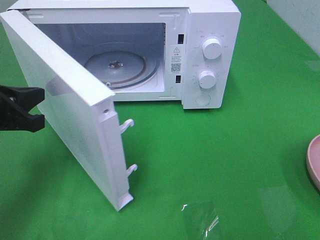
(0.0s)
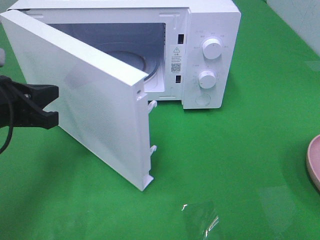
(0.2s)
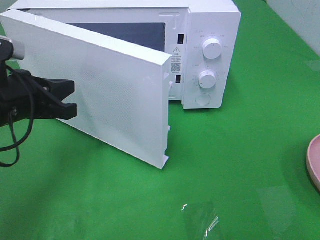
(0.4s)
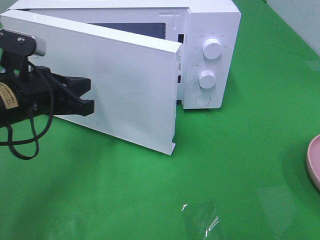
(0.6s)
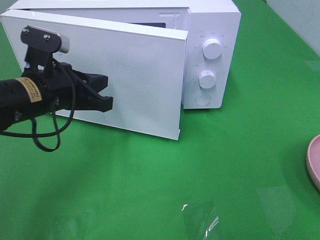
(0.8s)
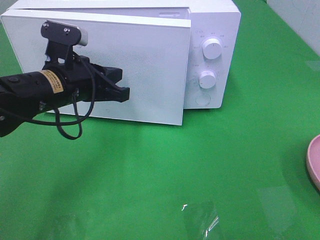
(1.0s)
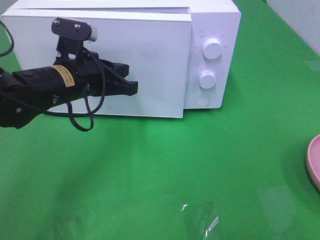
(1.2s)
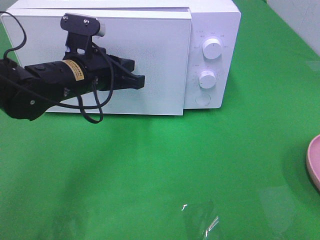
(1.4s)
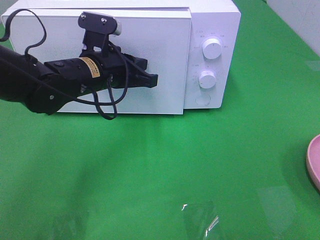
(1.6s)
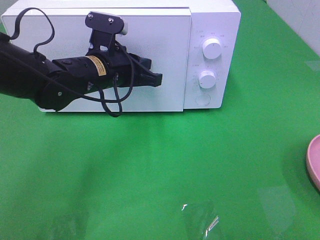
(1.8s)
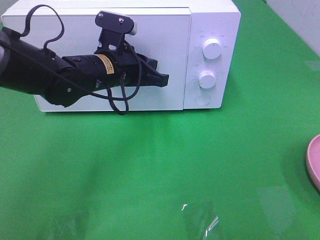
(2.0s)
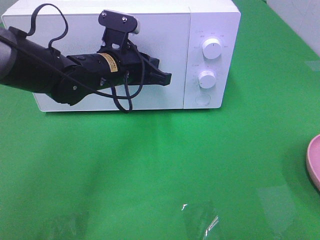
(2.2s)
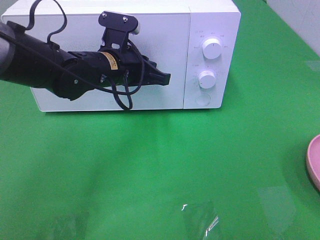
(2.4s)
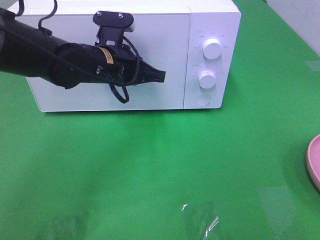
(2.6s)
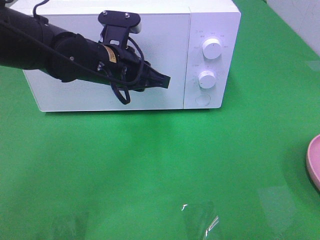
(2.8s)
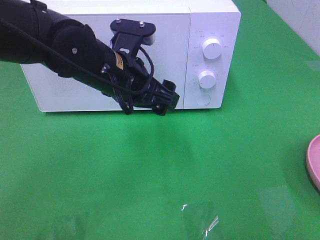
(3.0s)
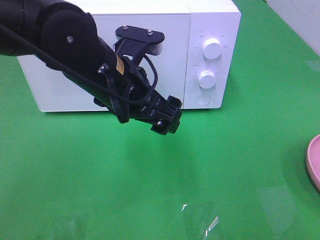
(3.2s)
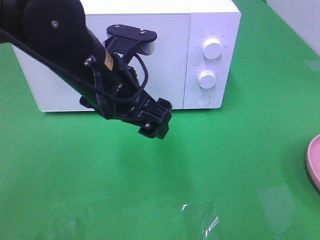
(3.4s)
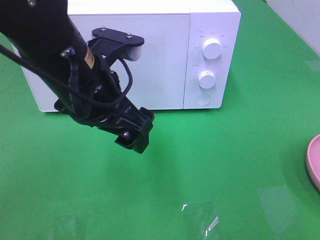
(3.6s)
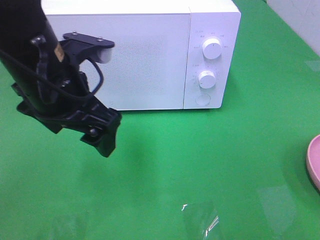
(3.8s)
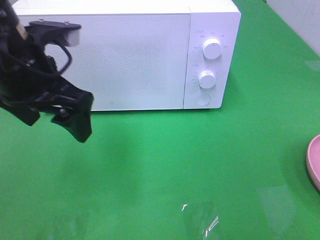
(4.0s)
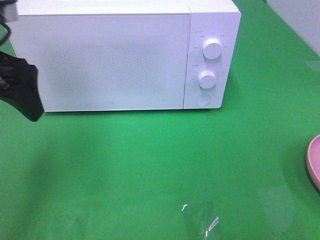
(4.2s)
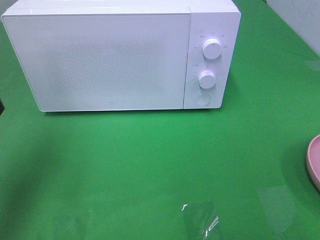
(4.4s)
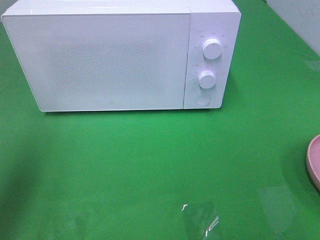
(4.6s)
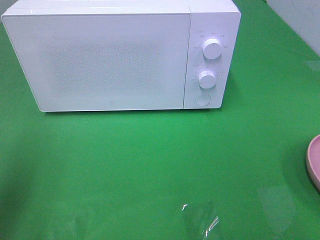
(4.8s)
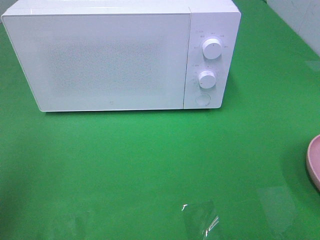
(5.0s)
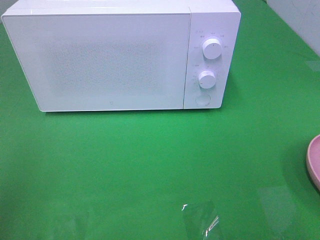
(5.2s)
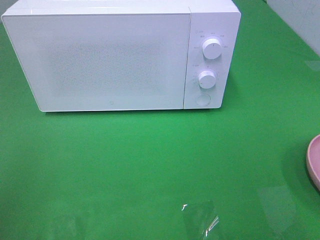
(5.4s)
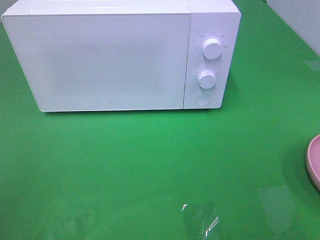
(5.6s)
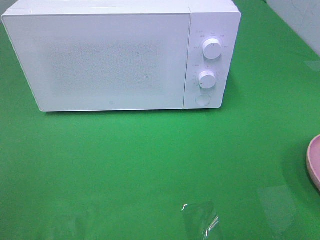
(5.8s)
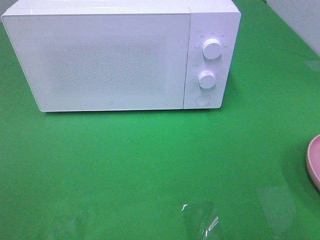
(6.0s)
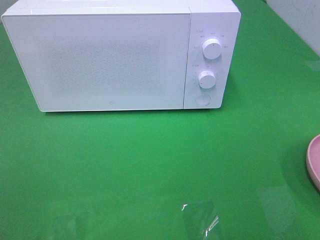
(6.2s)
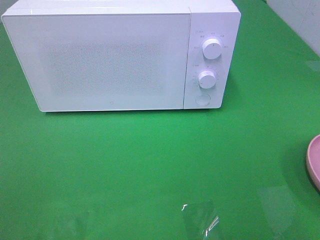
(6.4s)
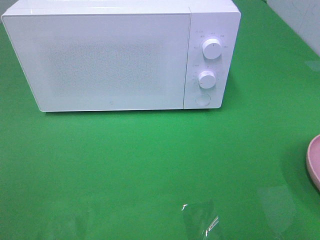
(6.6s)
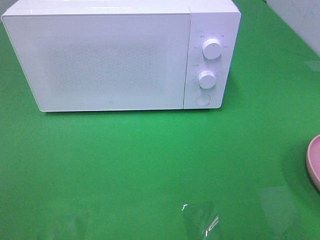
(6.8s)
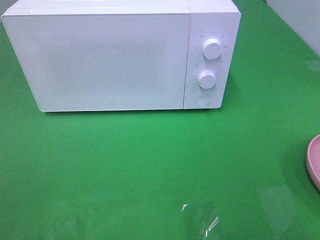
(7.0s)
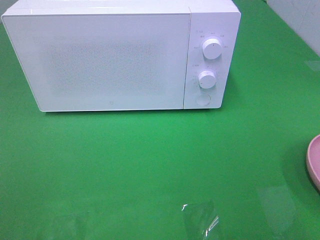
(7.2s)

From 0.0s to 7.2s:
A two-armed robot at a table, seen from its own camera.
Task of the whole recording: Heat the burger.
Step, from 0.0s to 3.2s: Left hand: close the microwave door.
From 0.0s to 1.4s: The left gripper travels to the right and forward by some 15 cm.
From 2.8s to 4.4s: The left gripper shifts about 25 cm to the left, upward and backward, and opens its fingers.
From 4.4s to 5.8s: The left gripper shifts approximately 20 cm backward.

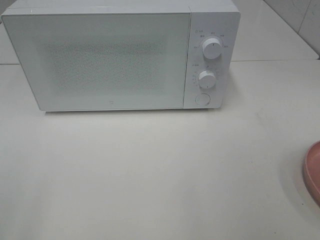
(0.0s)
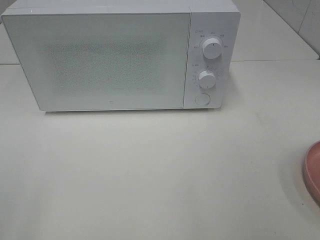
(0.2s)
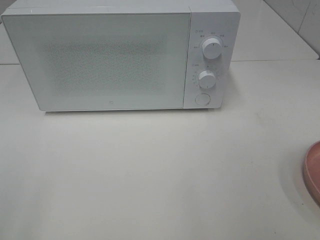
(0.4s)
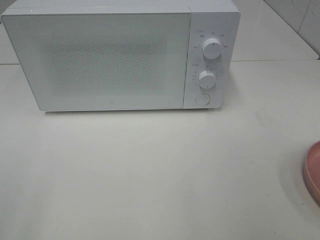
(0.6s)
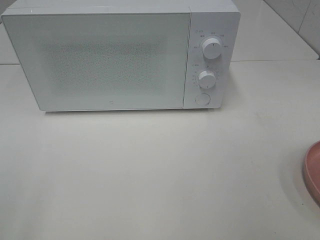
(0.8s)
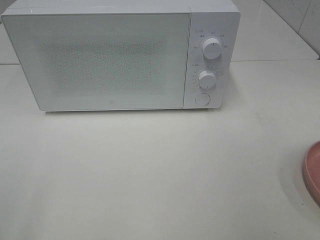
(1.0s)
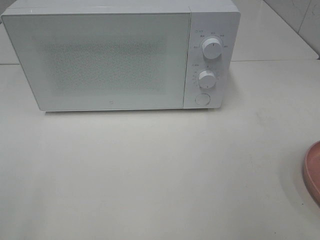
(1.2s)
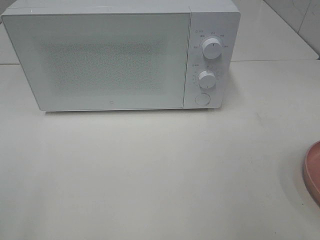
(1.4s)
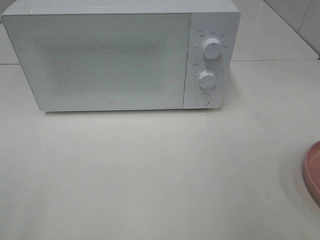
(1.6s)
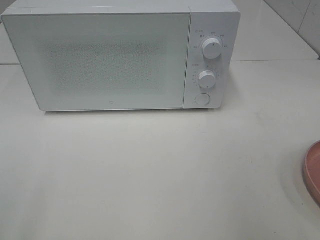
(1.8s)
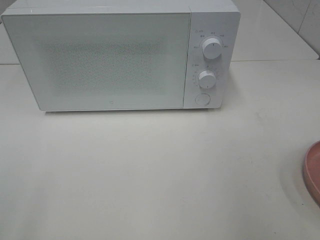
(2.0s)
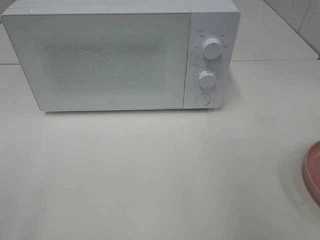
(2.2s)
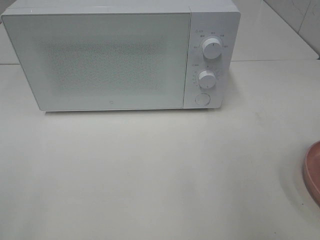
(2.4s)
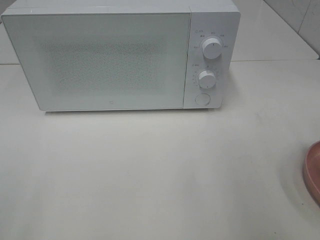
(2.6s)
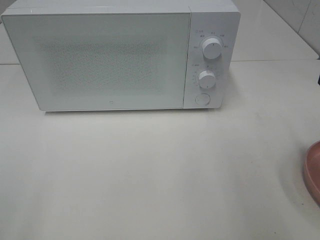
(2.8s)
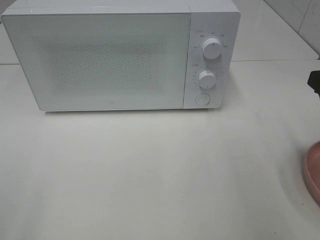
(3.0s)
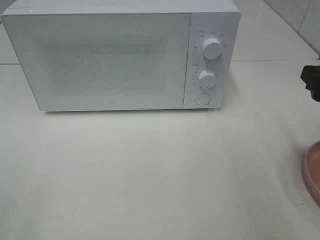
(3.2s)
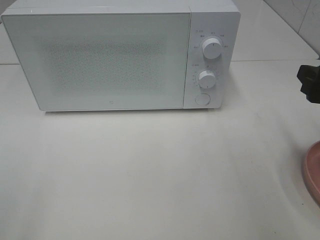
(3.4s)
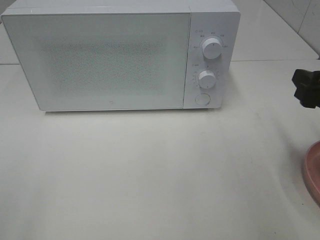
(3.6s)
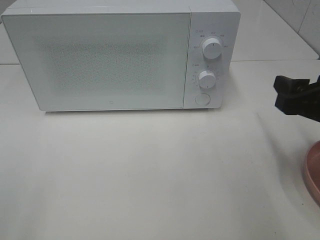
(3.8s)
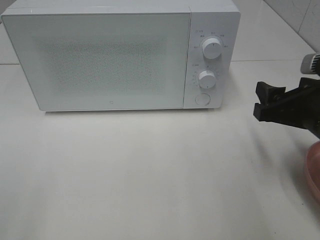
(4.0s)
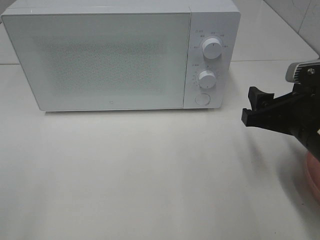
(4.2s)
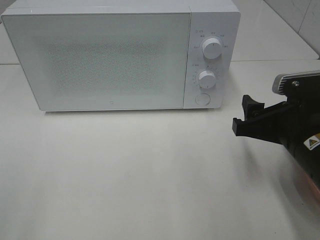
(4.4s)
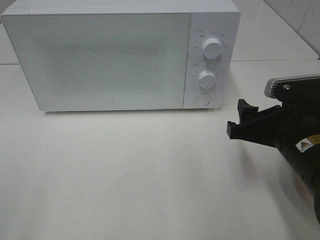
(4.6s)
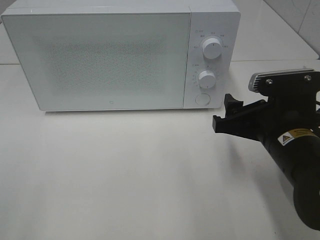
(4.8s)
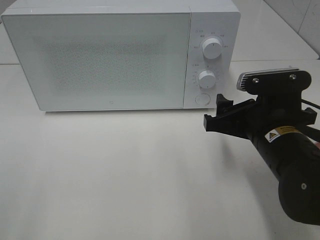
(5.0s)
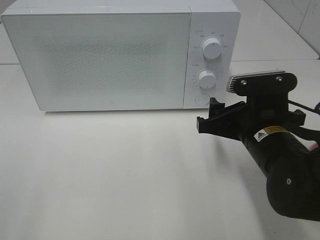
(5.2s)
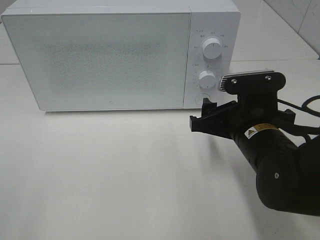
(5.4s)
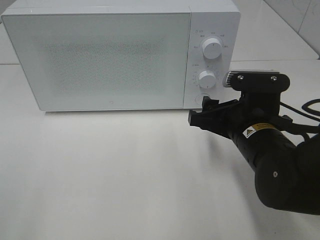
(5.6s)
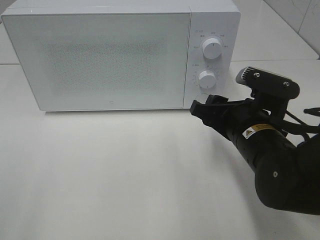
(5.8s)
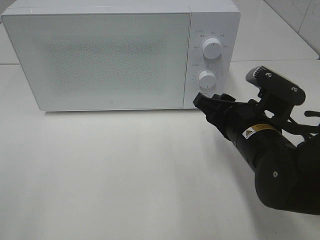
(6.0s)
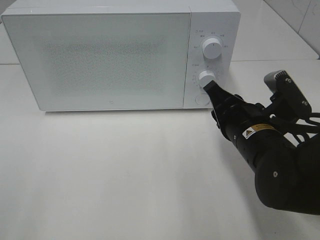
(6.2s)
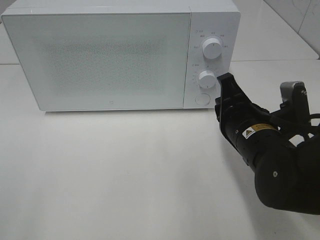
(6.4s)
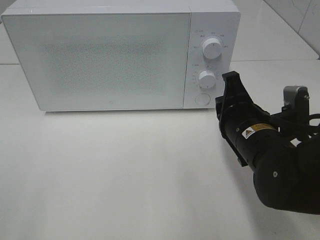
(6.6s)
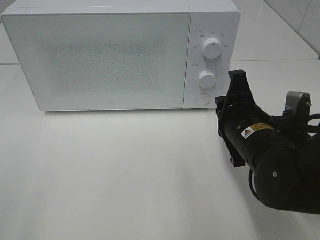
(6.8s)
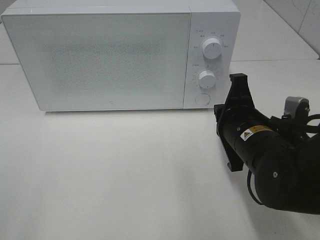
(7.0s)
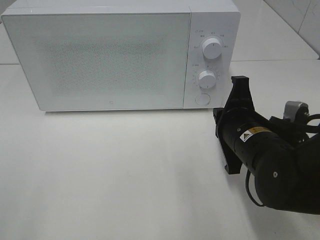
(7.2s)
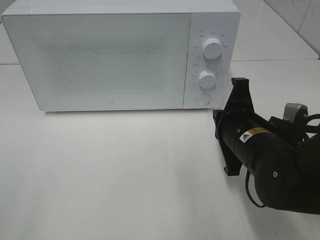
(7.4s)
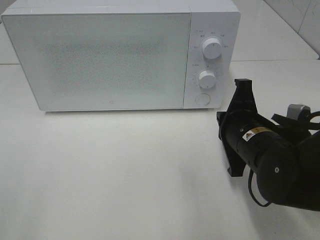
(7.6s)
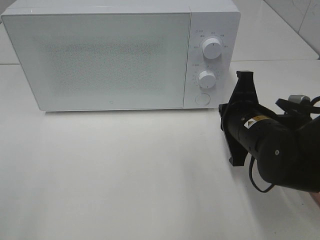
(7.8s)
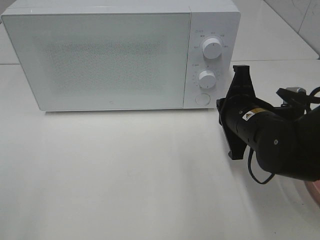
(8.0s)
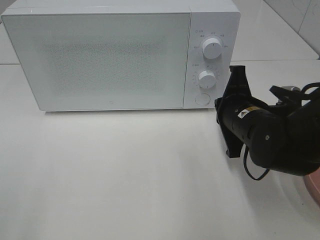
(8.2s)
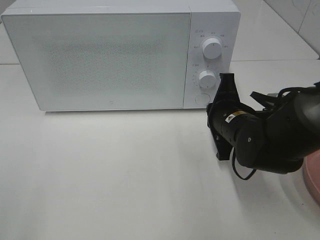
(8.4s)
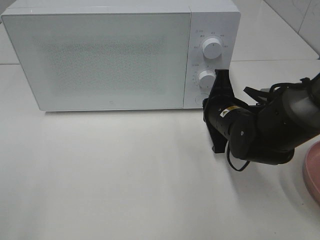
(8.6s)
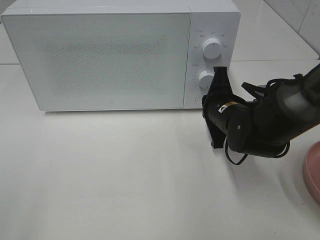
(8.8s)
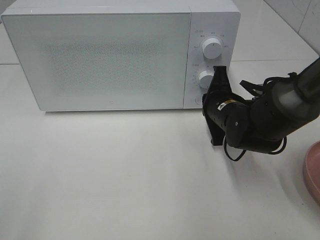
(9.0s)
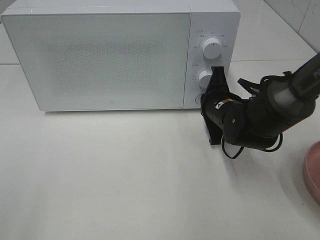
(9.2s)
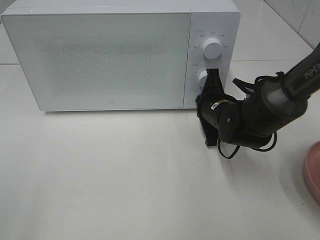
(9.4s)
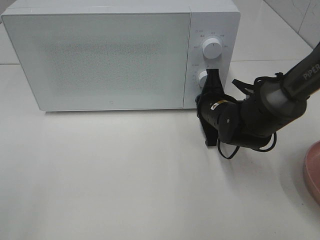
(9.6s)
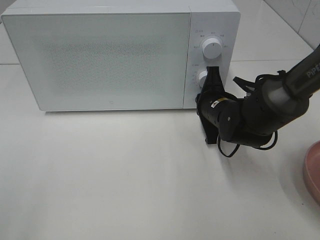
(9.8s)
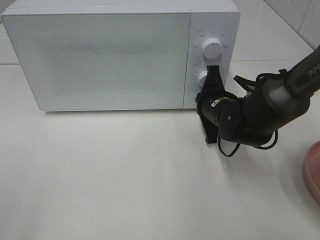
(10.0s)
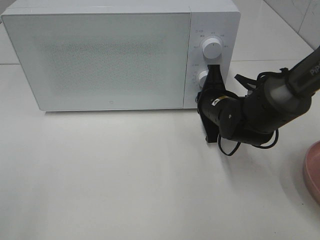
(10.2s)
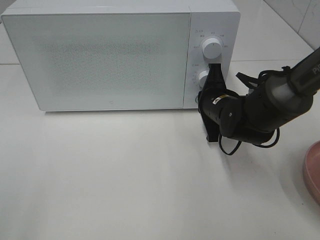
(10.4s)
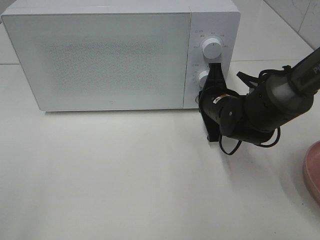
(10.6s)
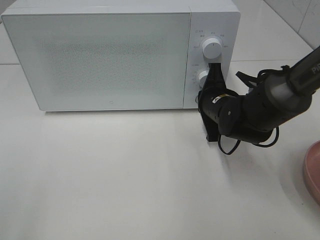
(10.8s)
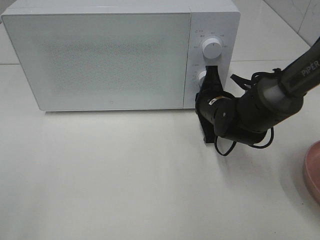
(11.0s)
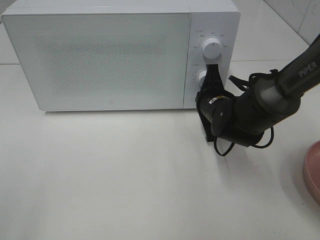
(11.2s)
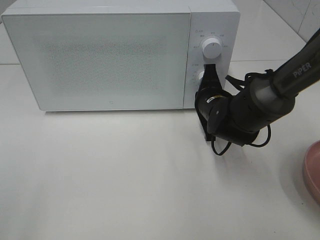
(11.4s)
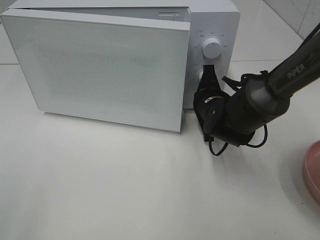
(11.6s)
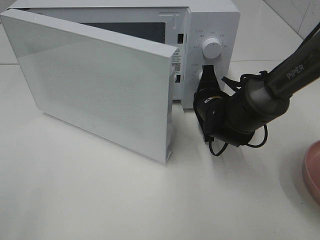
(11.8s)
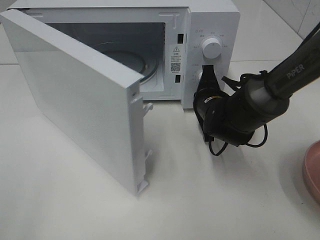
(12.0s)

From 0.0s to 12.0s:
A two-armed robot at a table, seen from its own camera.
Task of the whole recording: Heat the burger.
From 3.0s to 4.4s: The right gripper moves to the left and downward, some 10 cm.
From 4.4s to 6.0s: The right gripper moves to the left, some 5 cm, and closes up.
From 6.0s to 7.6s: The right gripper closes up.
From 7.6s to 9.0s: The right gripper moves forward, about 10 cm.
From 9.0s to 10.4s: The grippers make only small movements.

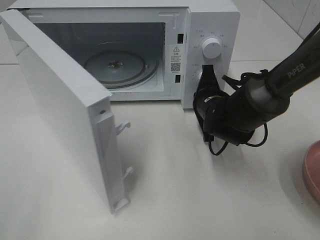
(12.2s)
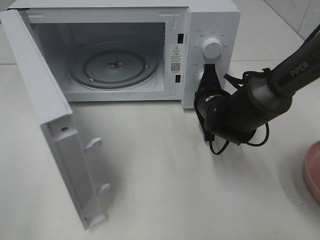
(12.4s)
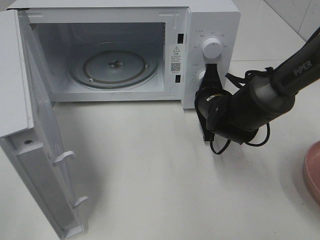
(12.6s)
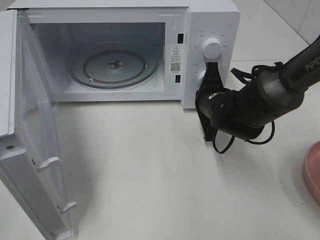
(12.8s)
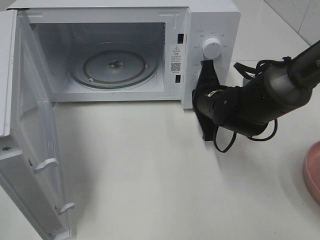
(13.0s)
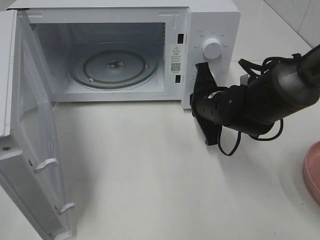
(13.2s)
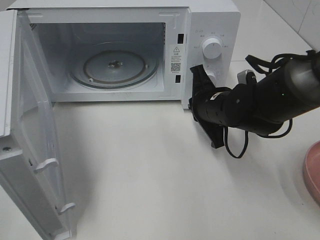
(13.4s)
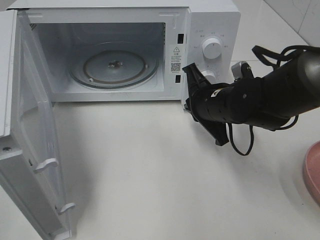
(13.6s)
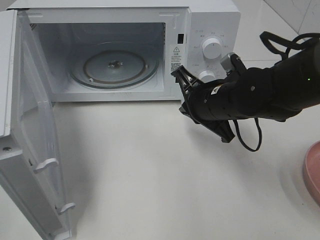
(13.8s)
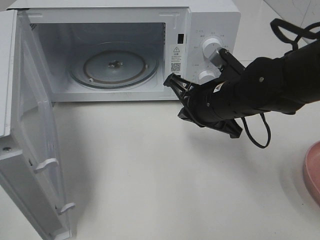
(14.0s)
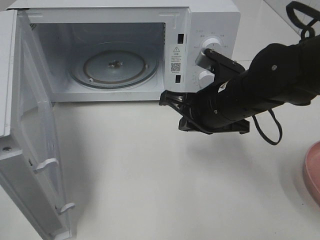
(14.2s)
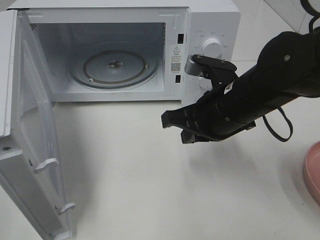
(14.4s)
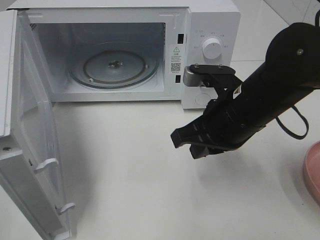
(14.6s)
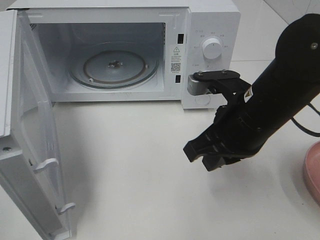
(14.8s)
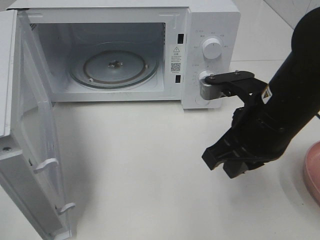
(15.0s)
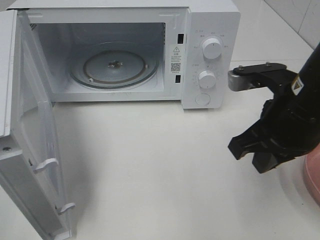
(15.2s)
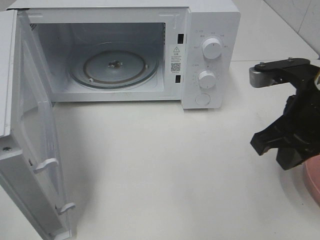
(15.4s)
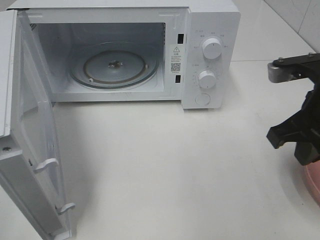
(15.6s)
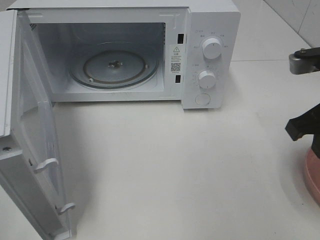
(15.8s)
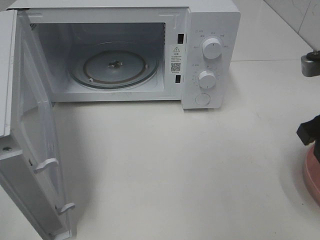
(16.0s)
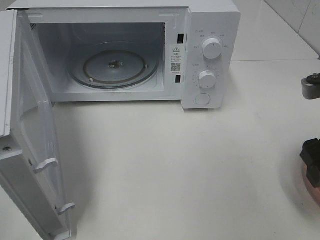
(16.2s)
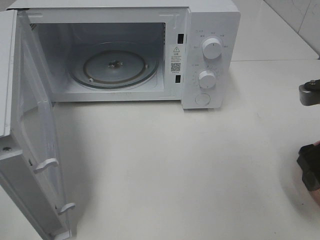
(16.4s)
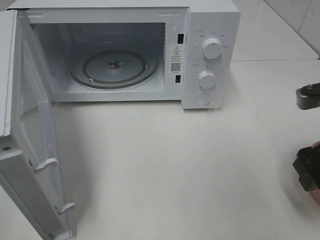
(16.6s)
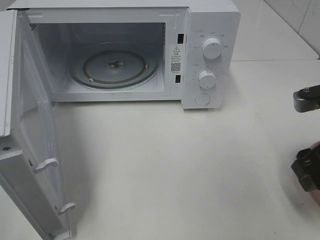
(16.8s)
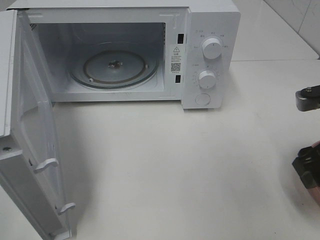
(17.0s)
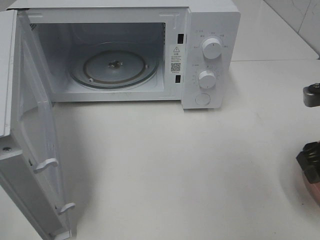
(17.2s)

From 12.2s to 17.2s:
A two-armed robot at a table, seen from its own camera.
Task of the whole recording: Heat the burger.
From 12.2s to 13.8s: The right gripper goes about 10 cm upward and backward.
From 13.8s to 15.6s: The right gripper heads to the right, upward and backward, covering about 15 cm.
From 15.6s to 17.2s: The right gripper moves to the right, some 5 cm, and opens up.
